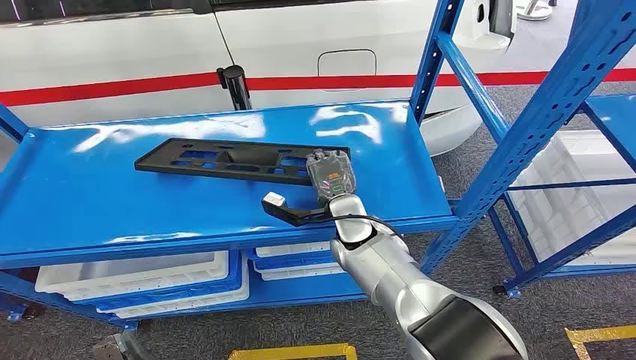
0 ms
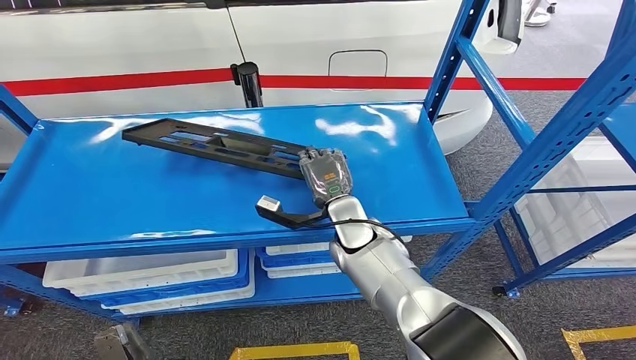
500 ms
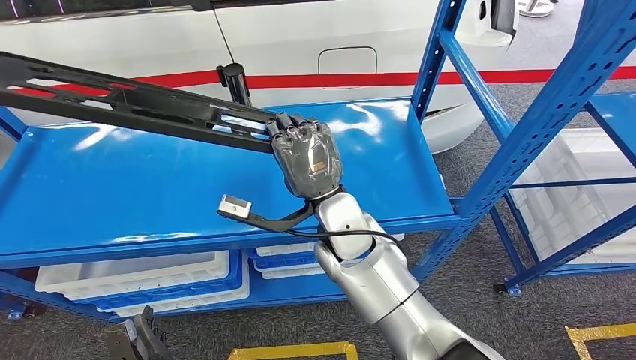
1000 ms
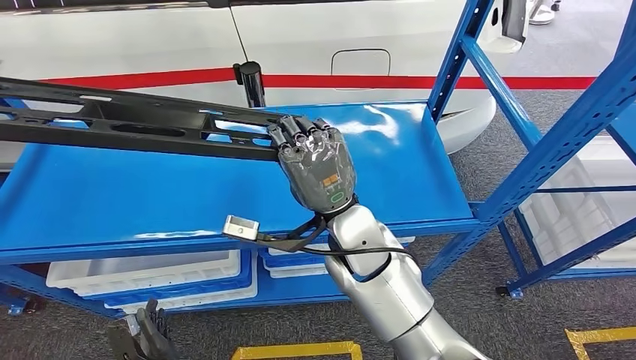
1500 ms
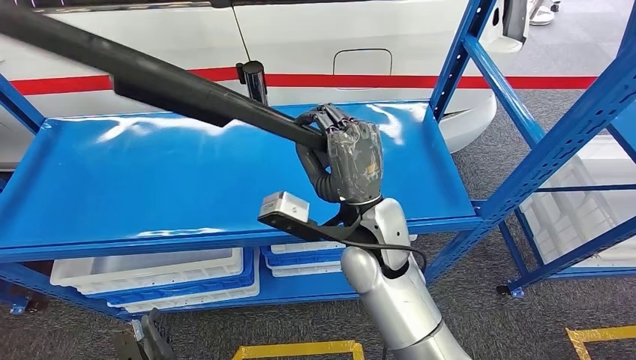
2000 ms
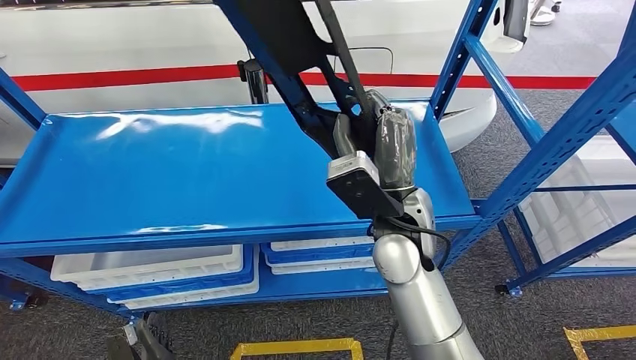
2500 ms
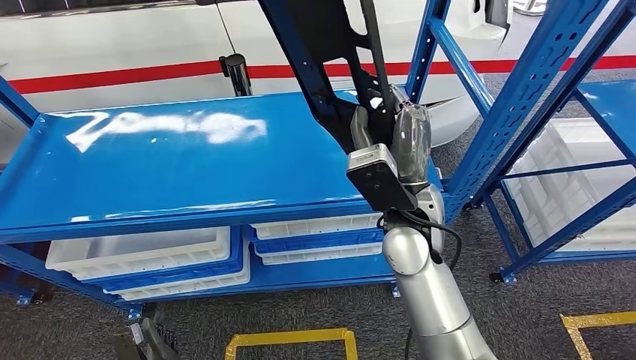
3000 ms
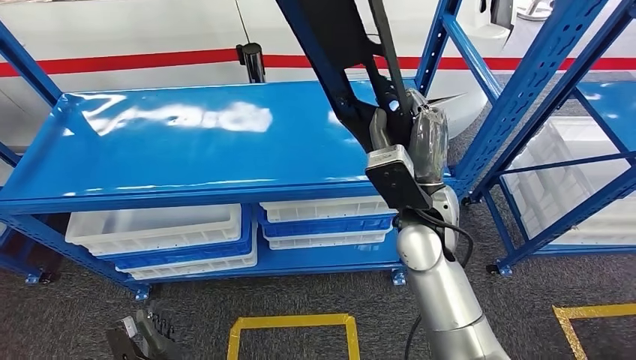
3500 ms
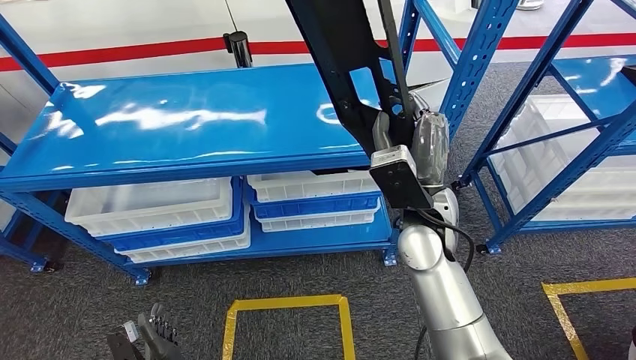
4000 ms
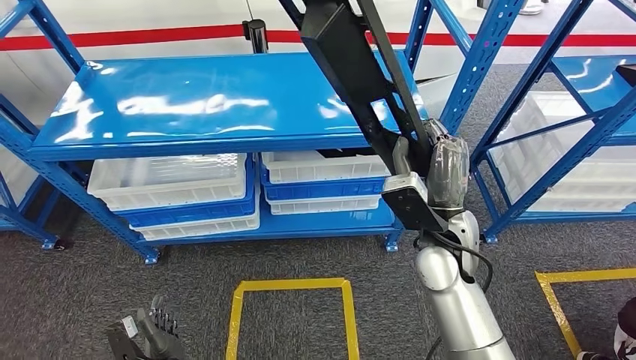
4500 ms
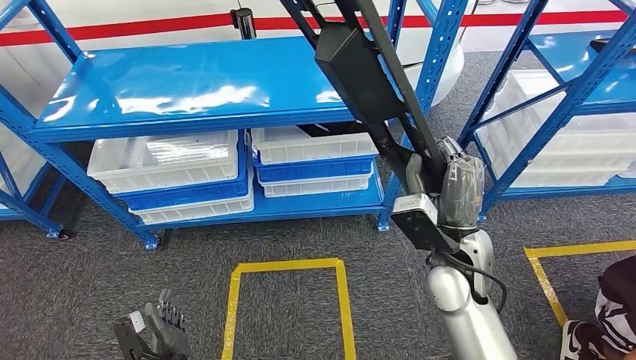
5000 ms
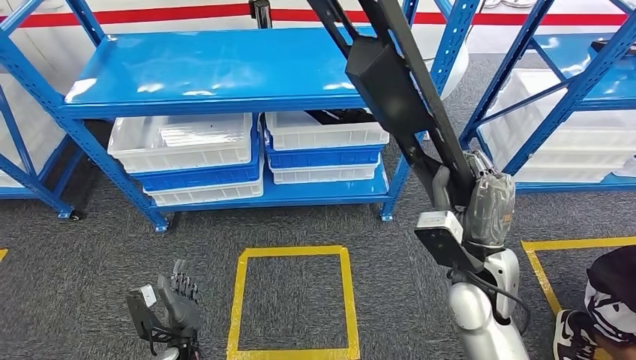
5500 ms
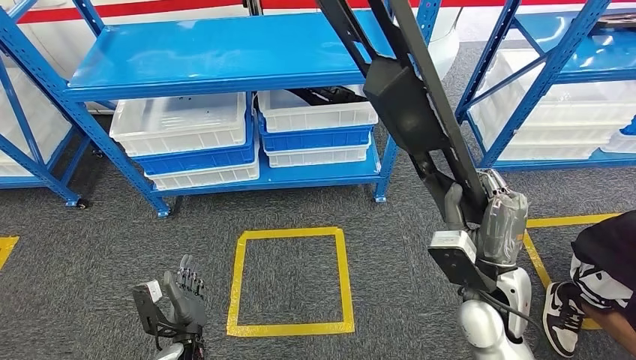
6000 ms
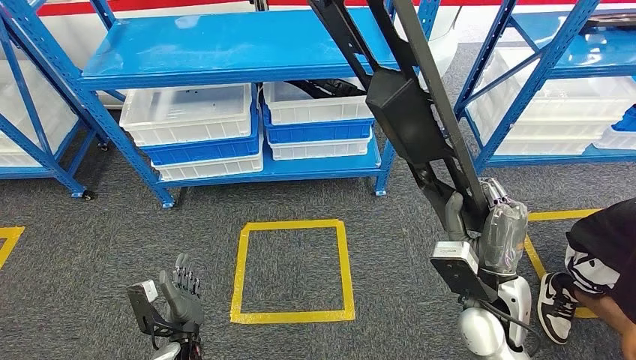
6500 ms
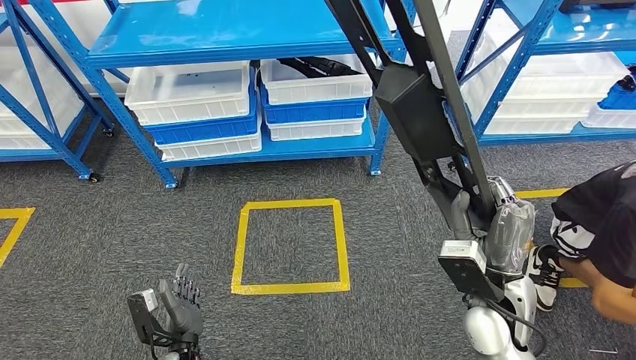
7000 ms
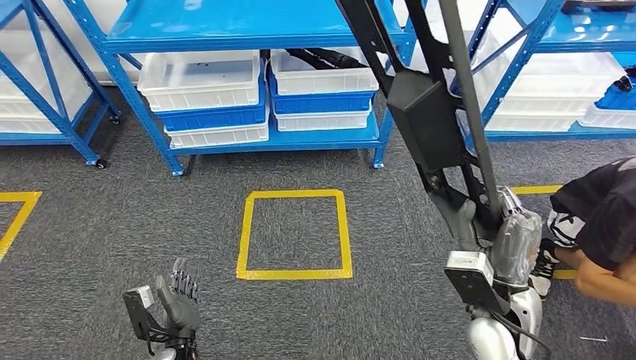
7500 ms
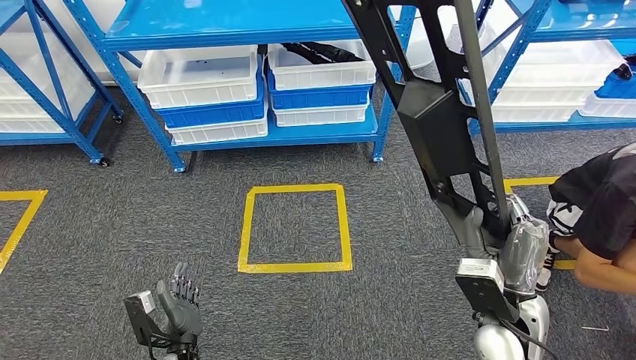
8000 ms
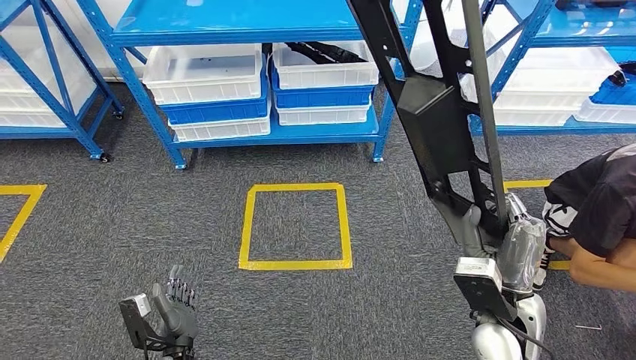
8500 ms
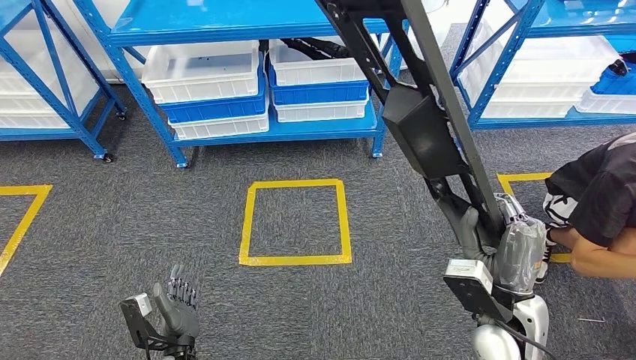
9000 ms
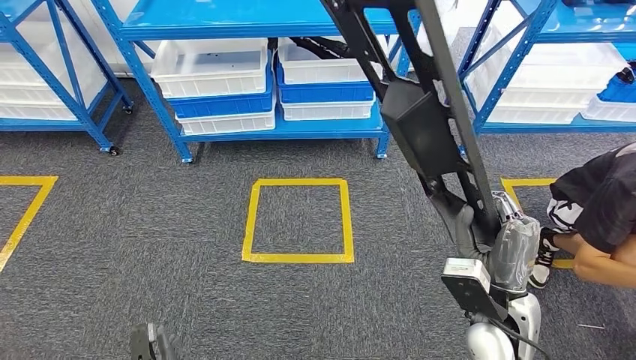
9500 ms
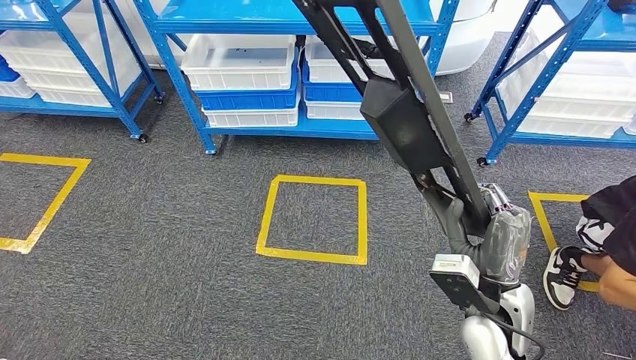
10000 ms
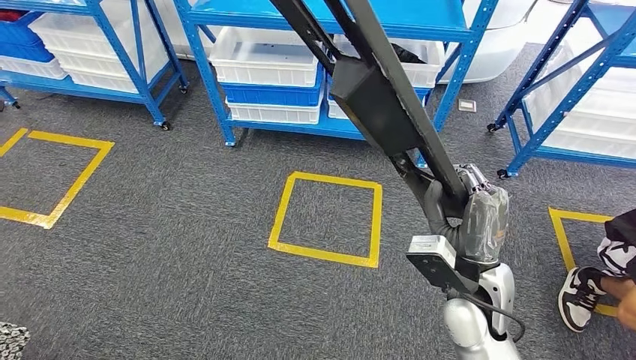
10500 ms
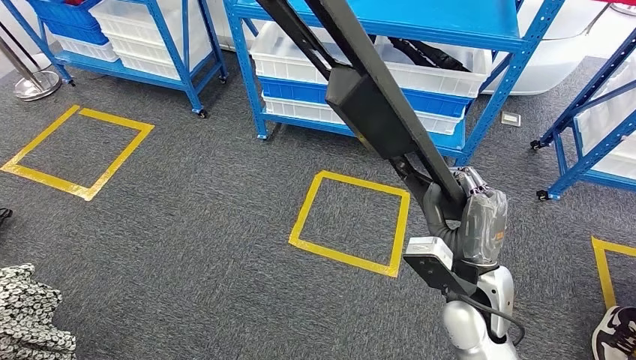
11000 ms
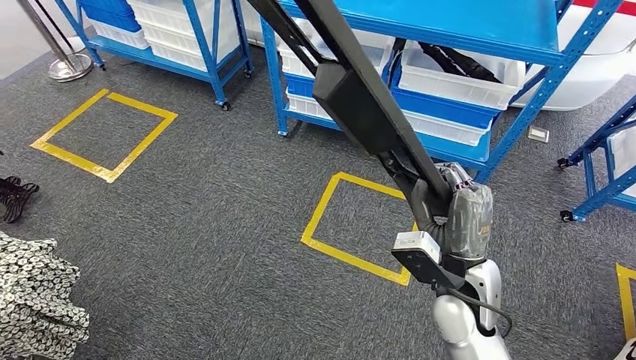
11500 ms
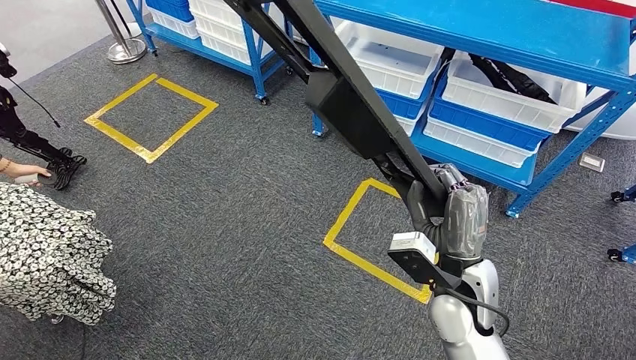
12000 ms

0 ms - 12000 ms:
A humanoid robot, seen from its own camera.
Step, 0 ms - 8500 ms: Pick up the large material from the shelf.

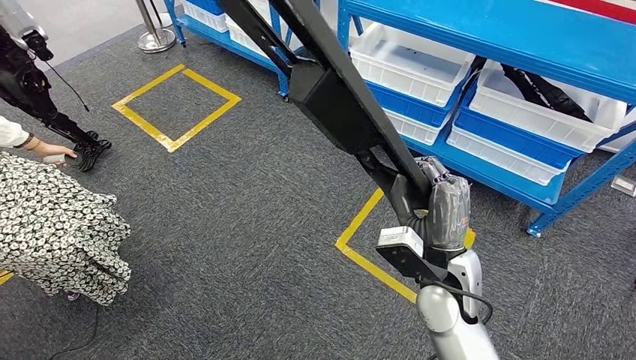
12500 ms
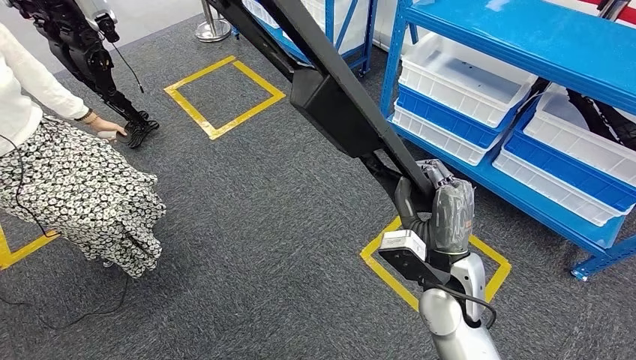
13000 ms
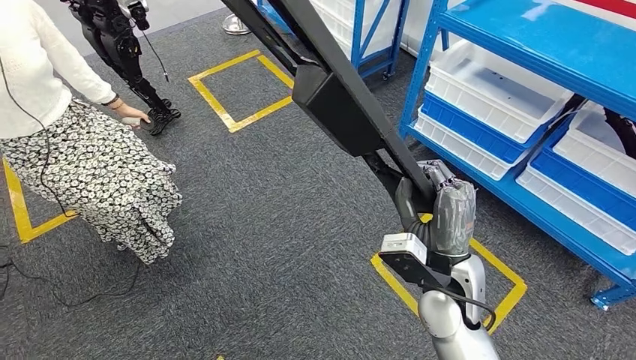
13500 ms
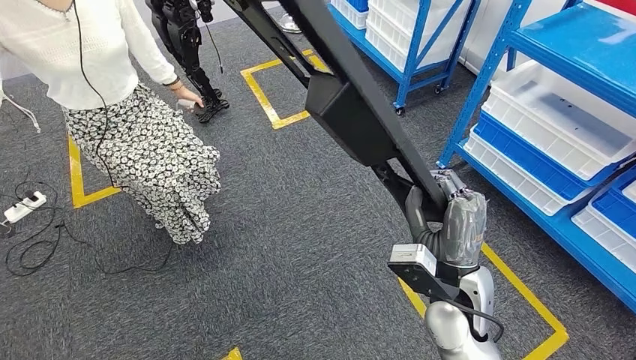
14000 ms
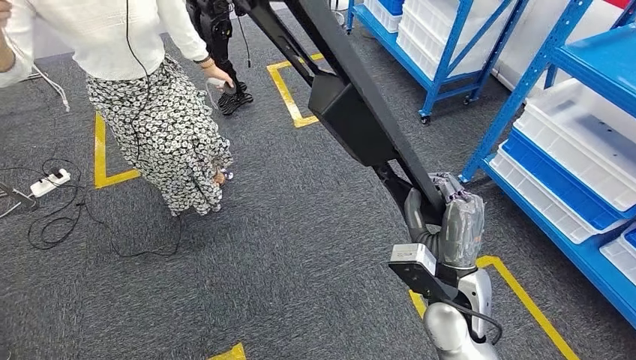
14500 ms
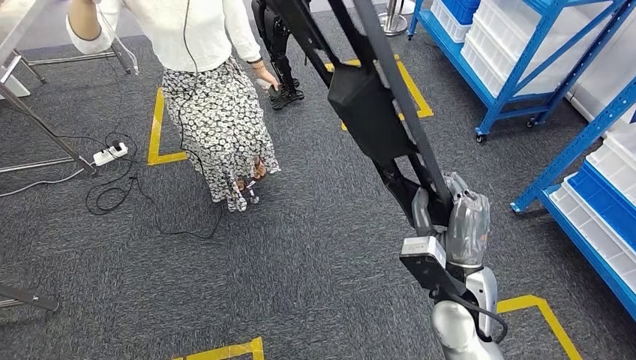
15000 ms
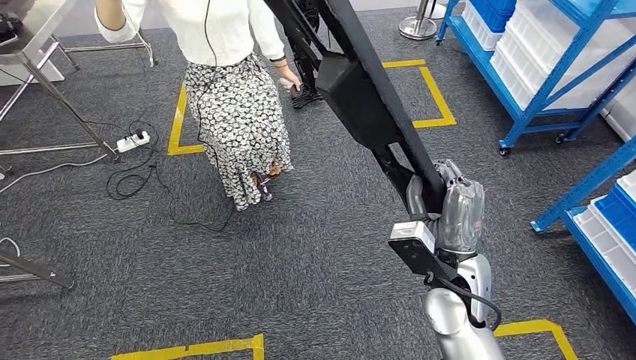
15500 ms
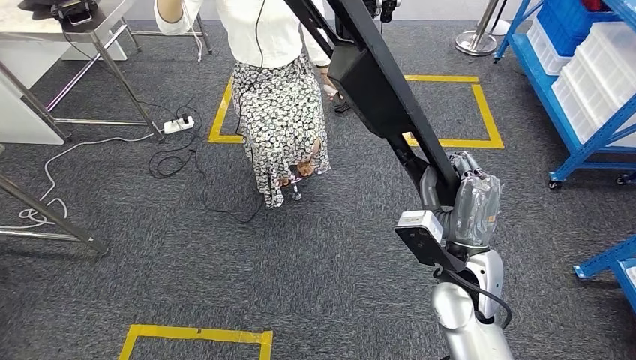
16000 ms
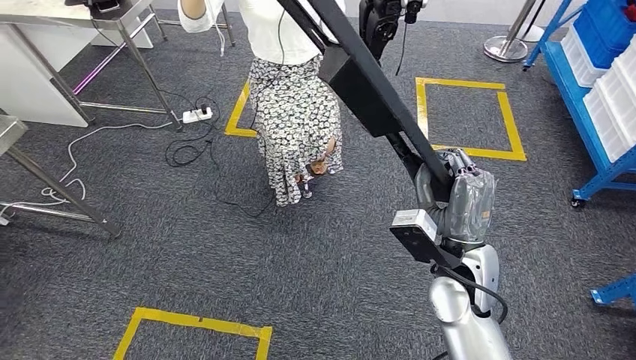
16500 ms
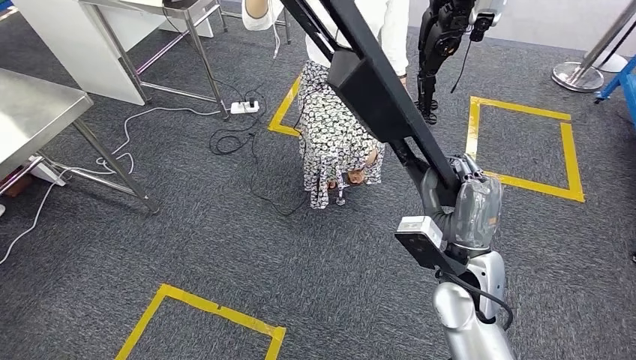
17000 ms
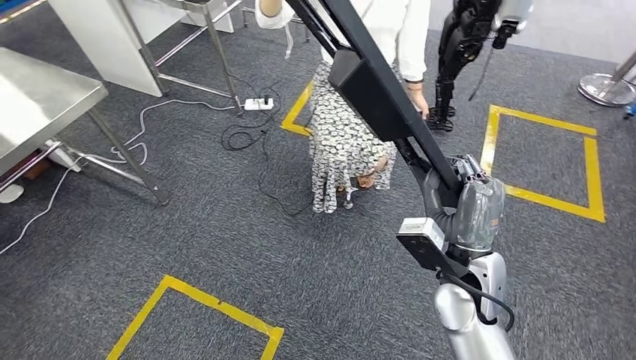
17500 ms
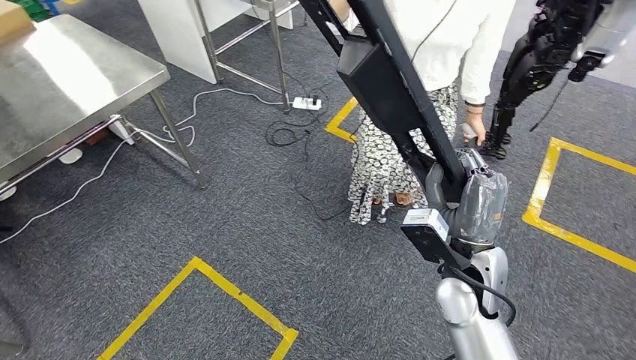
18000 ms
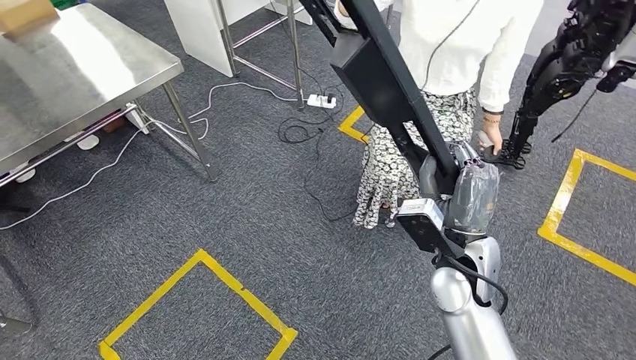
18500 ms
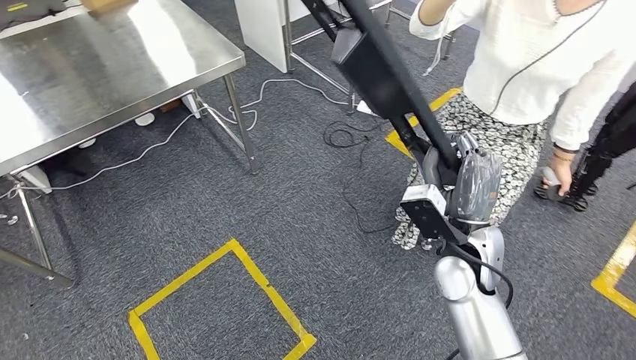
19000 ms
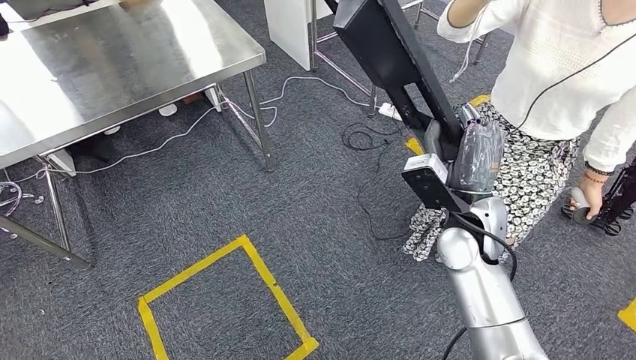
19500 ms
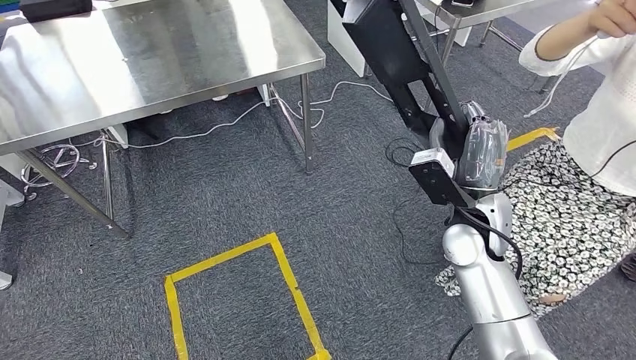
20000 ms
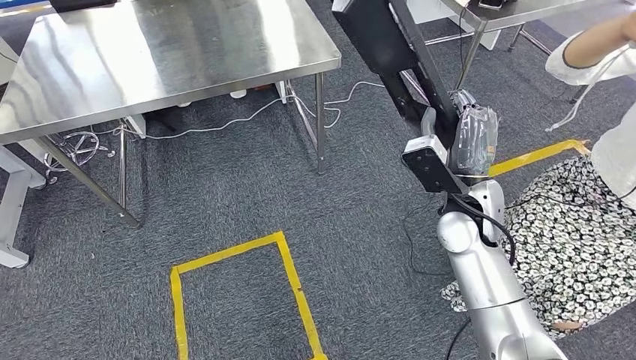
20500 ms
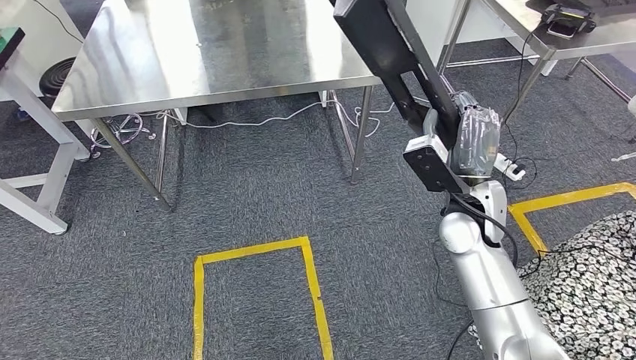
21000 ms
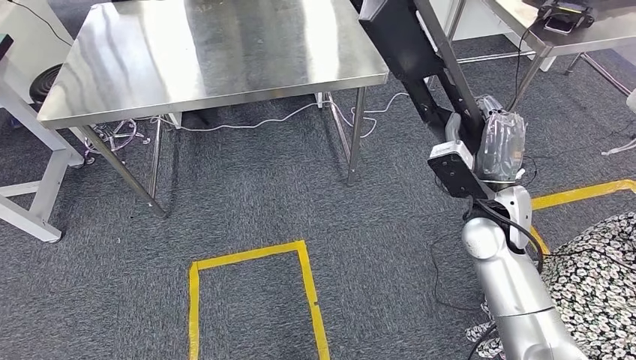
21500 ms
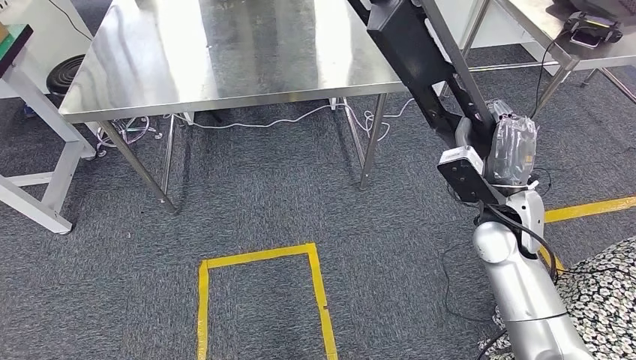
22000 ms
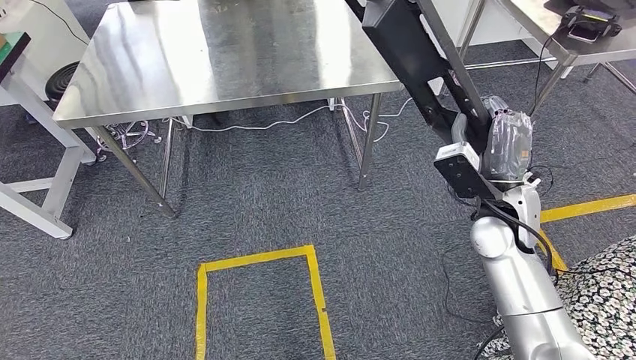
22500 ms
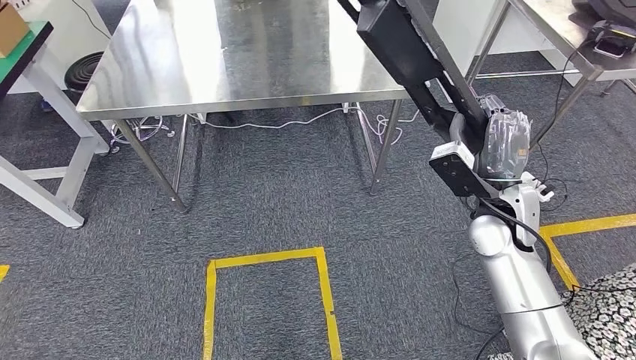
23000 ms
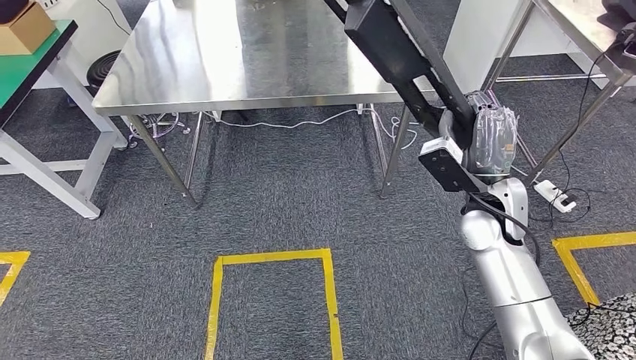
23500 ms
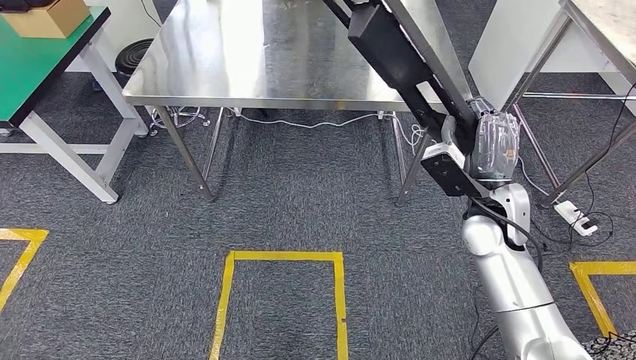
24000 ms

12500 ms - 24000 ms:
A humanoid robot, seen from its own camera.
Step, 12500 ms - 21000 ms: Move the large material to the workbench.
